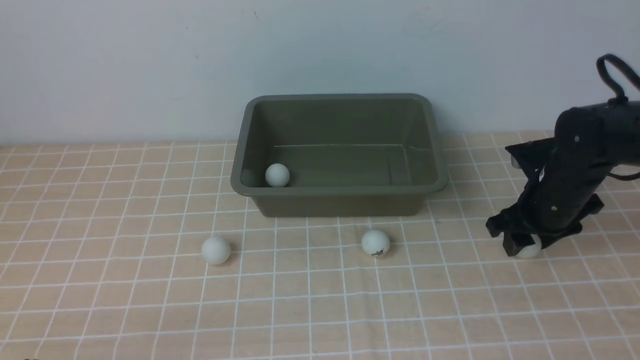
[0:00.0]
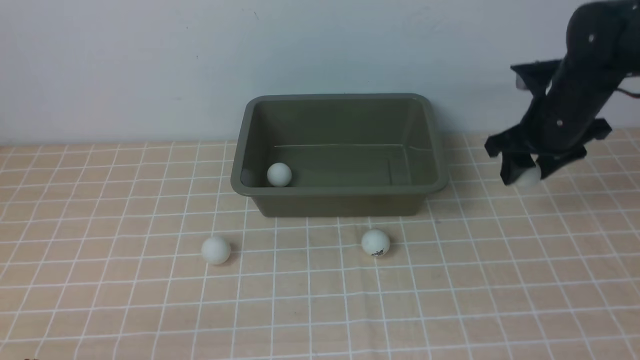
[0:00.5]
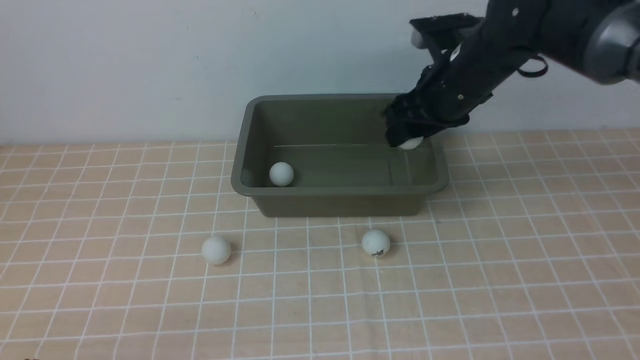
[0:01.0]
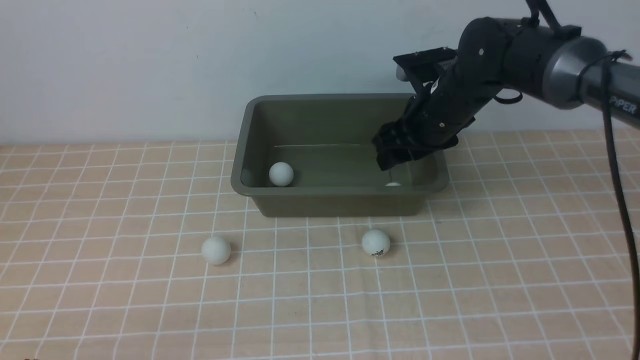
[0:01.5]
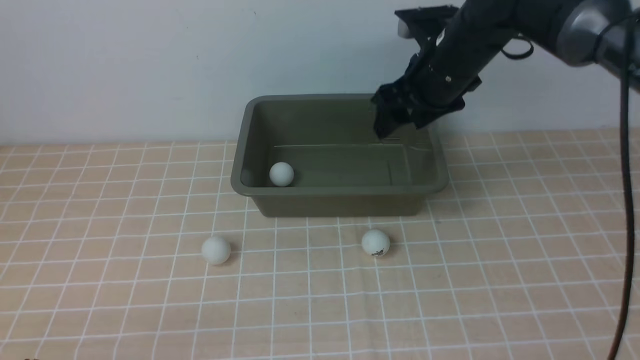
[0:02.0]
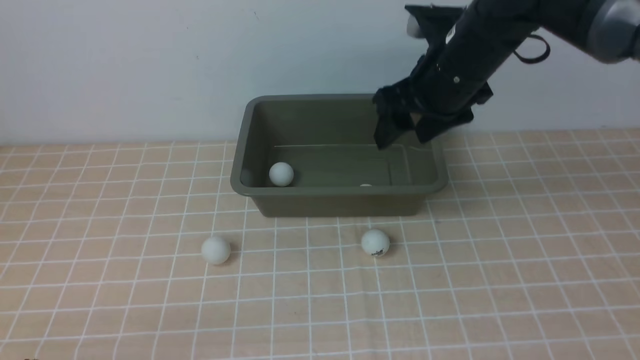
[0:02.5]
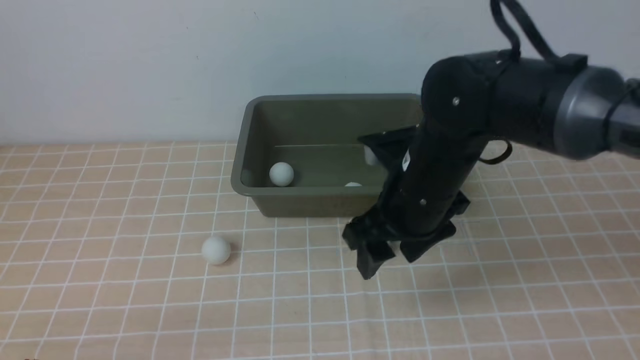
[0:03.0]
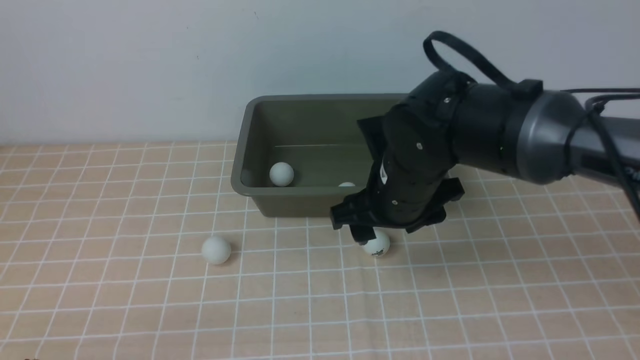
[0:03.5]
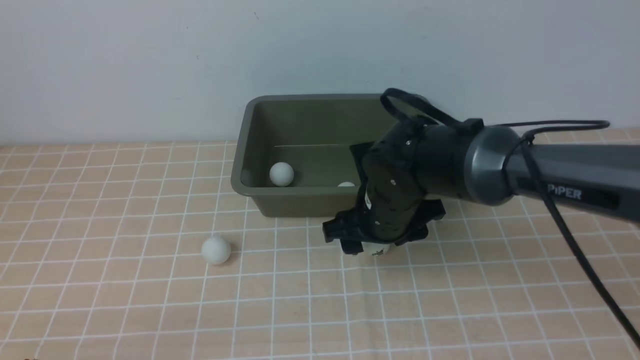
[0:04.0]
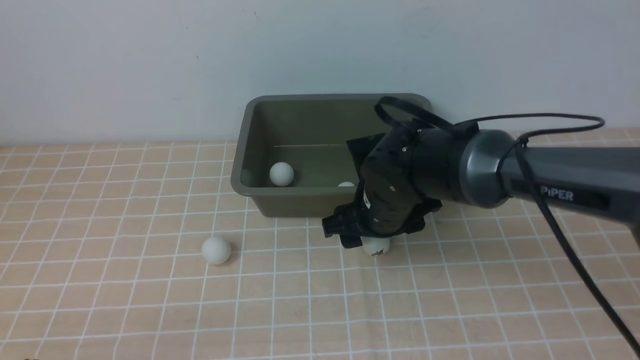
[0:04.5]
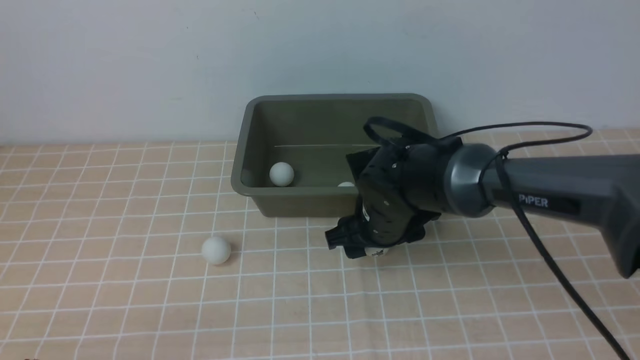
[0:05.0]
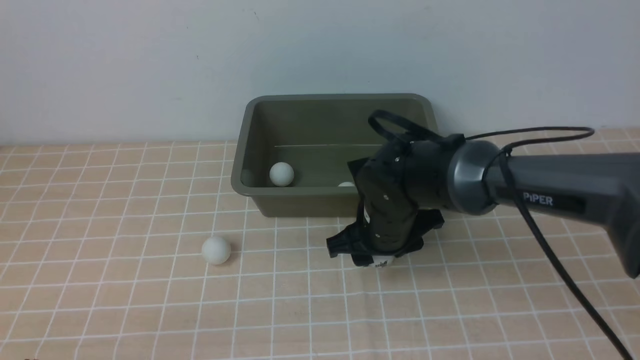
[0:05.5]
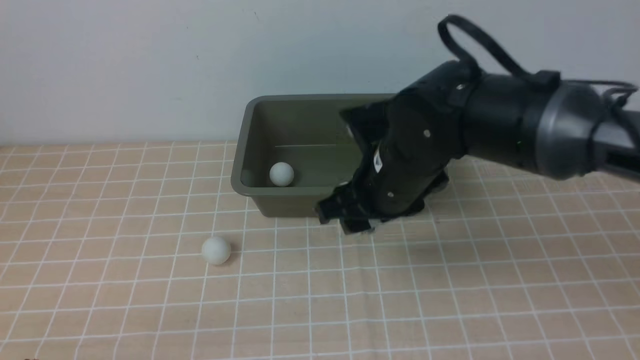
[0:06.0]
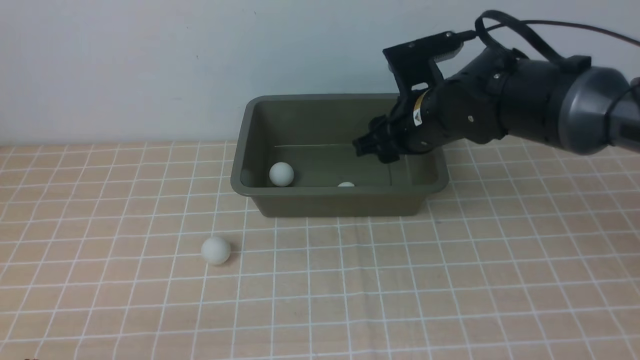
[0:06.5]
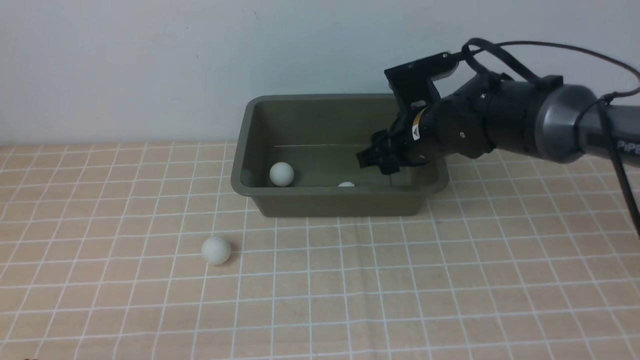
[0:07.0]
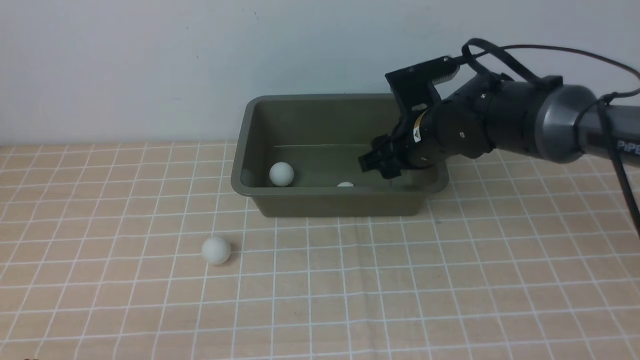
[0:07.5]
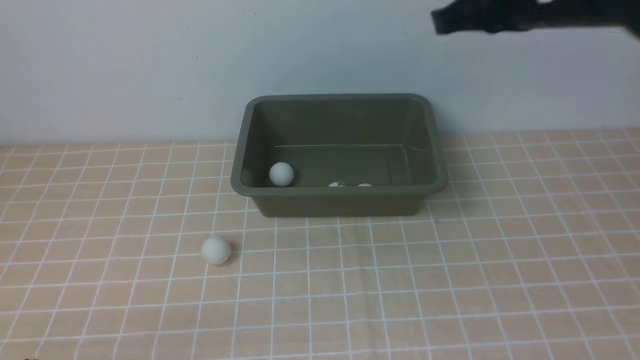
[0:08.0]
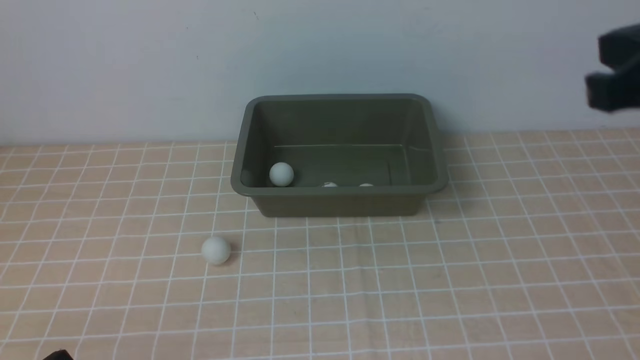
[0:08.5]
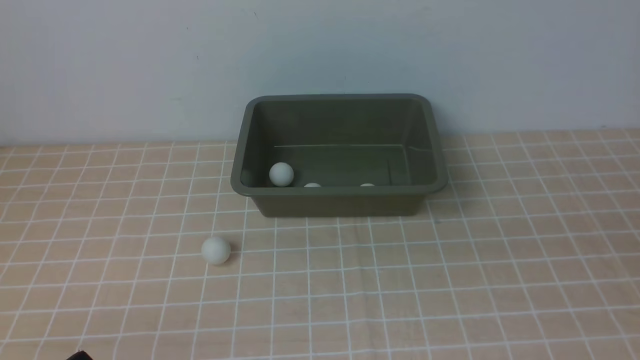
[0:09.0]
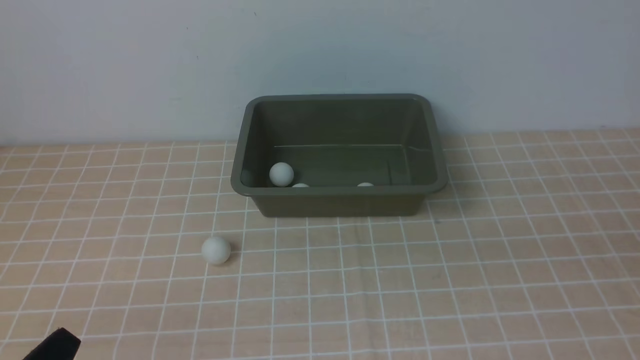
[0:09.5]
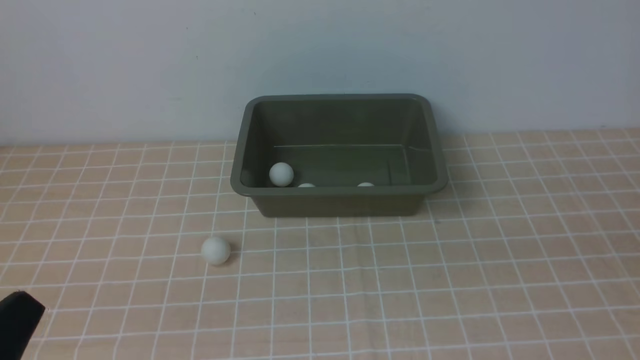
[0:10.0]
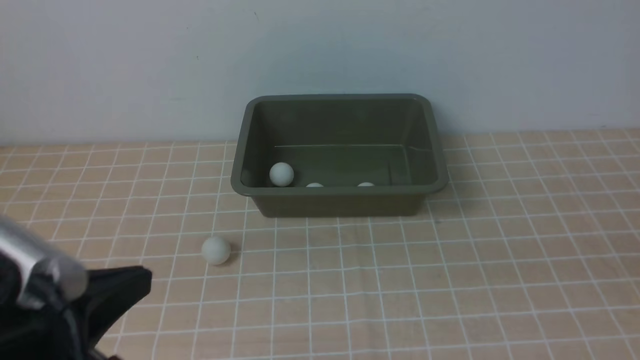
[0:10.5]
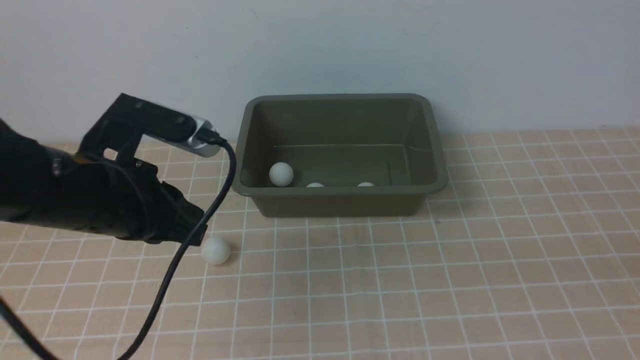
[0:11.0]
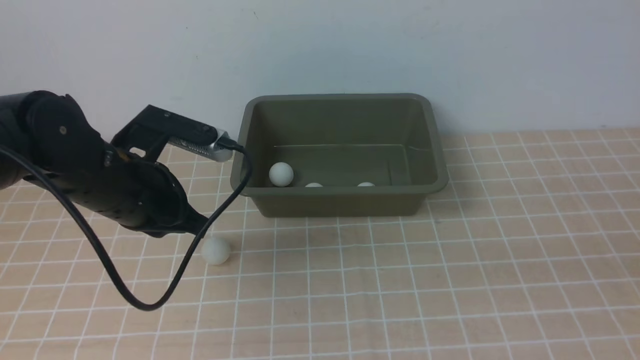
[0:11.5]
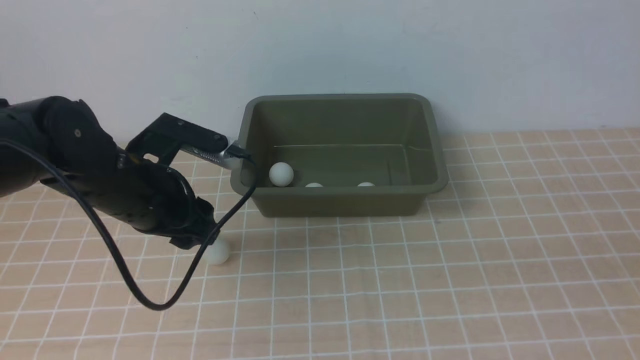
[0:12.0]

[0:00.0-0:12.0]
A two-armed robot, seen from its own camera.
Step, 0:01.5 to 0:02.0: use the right arm to put the table tennis ball into the box.
Step, 0:02.5 to 0:06.0: use the right arm to clamp the table tennis ball closest to it.
Step, 0:06.5 to 0:07.5: use the right arm to put the table tennis ball into the box.
0:00.0 to 0:02.0: The right gripper moves to the left, upward and forward, approximately 20 cm.
0:02.0 to 0:04.0: The right gripper is displaced downward, backward and to the left by some 15 cm.
0:04.0 to 0:06.0: The right gripper goes roughly 5 cm upward.
0:06.0 to 0:08.0: The right gripper heads upward and to the right, covering some 20 cm, and closes.
0:08.0 to 0:10.0: The right gripper shifts about 25 cm backward and to the right; the left gripper travels upward by roughly 10 cm.
0:10.0 to 0:12.0: The left gripper heads forward, covering approximately 25 cm, and opens its fingers.

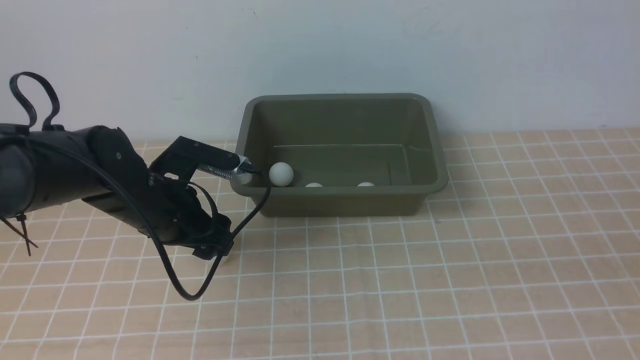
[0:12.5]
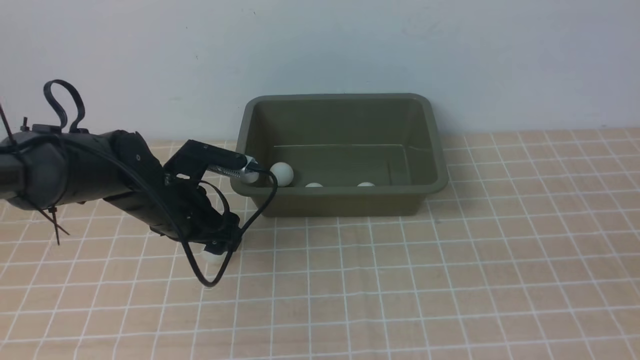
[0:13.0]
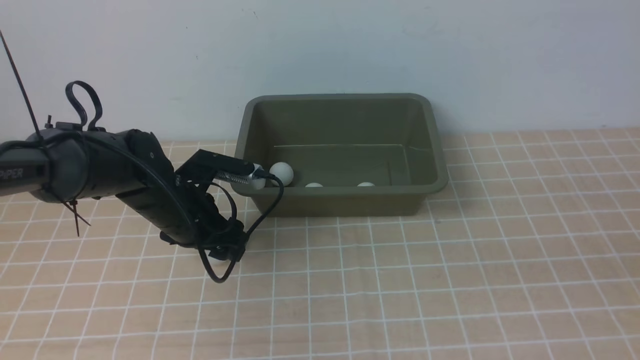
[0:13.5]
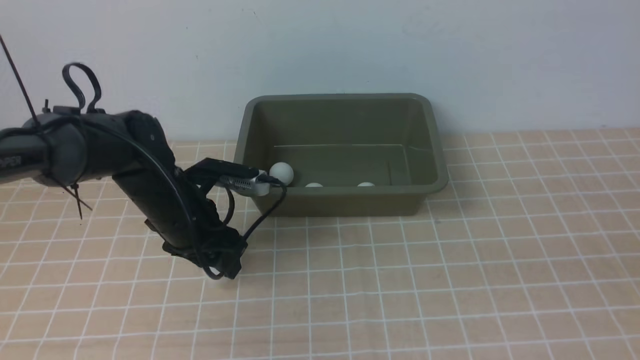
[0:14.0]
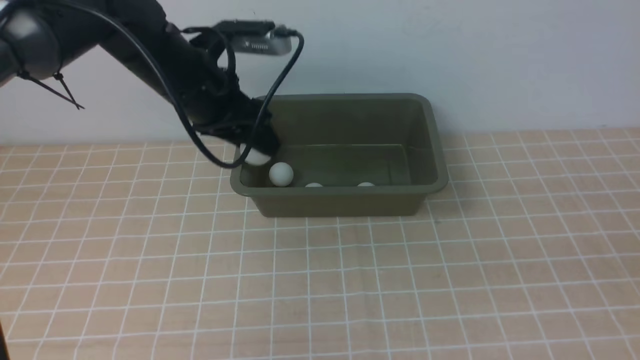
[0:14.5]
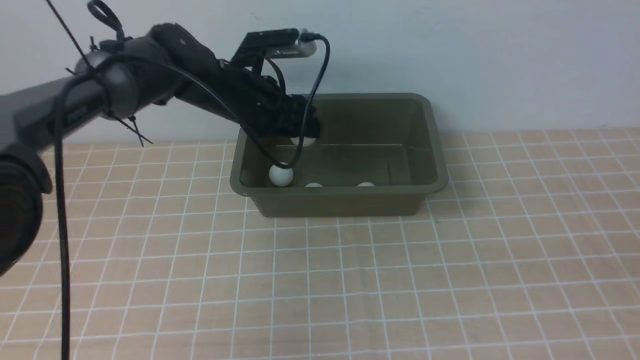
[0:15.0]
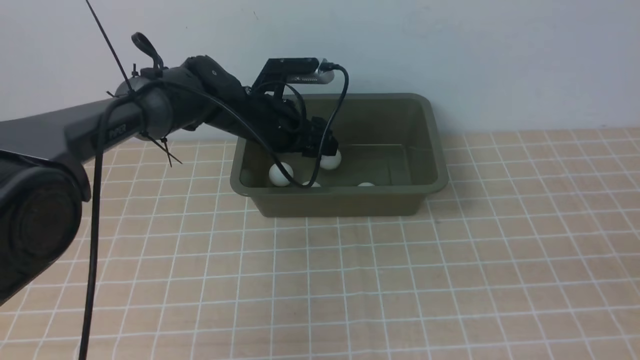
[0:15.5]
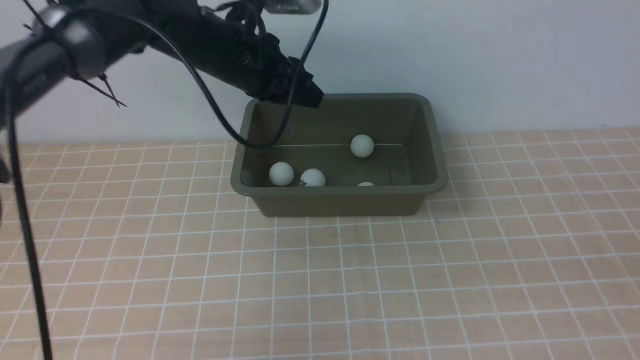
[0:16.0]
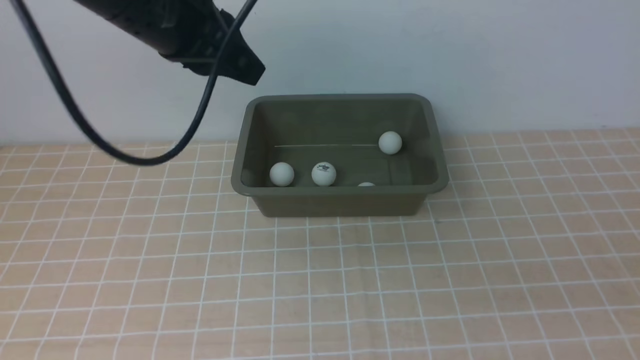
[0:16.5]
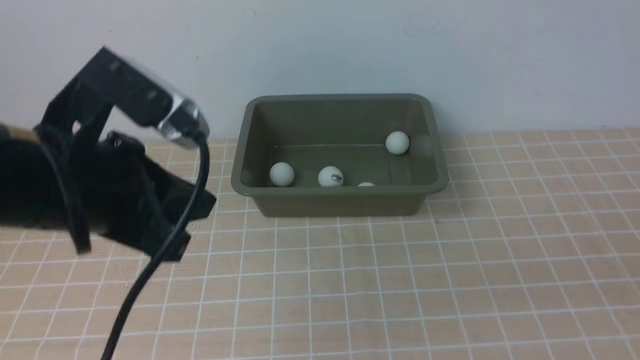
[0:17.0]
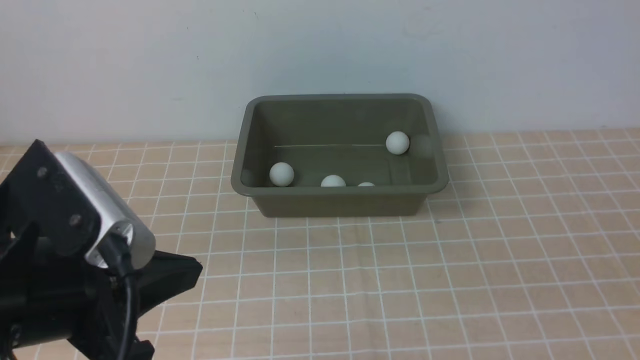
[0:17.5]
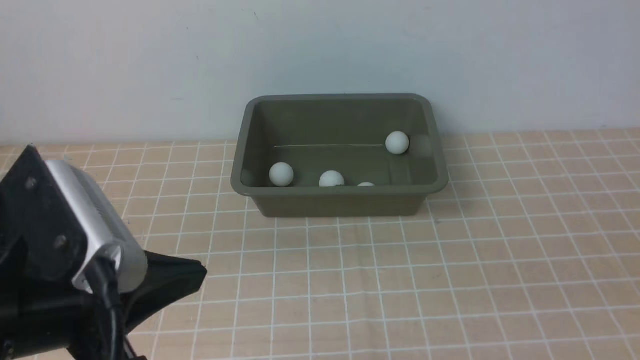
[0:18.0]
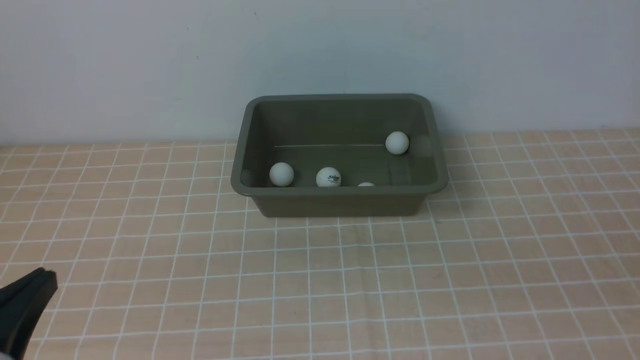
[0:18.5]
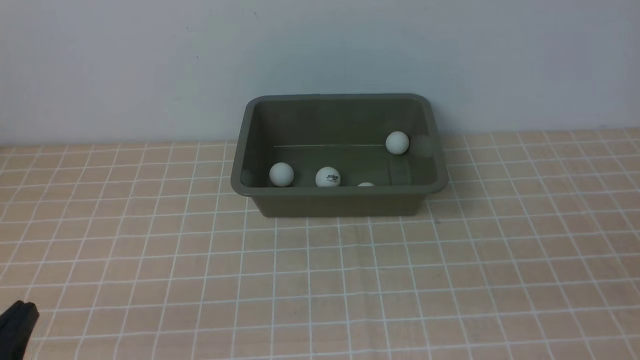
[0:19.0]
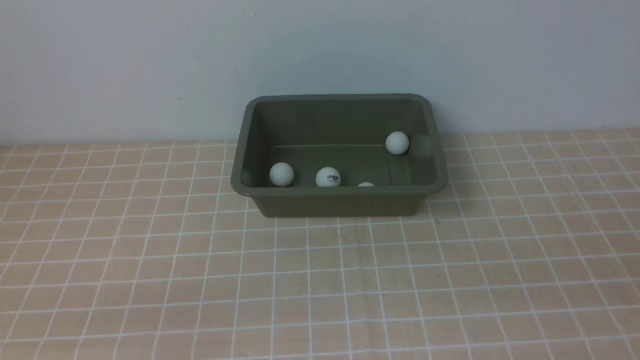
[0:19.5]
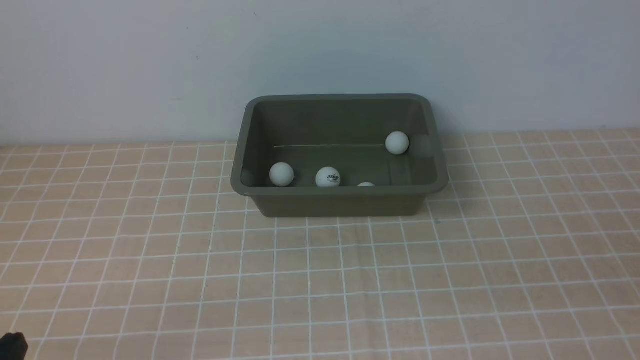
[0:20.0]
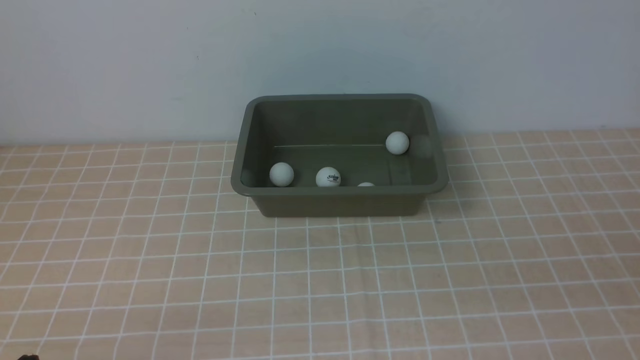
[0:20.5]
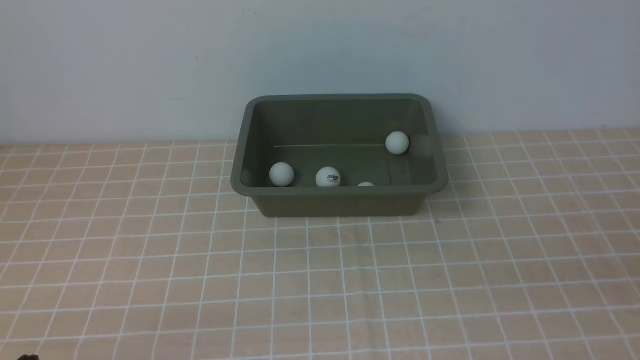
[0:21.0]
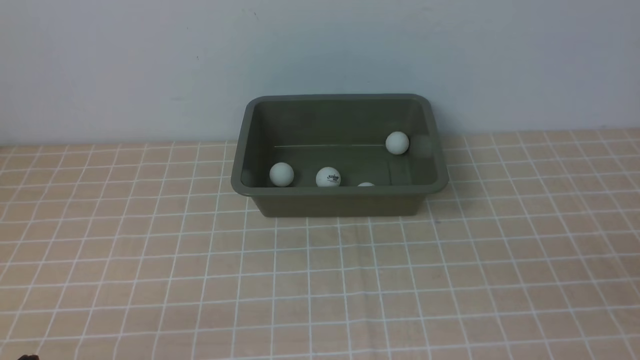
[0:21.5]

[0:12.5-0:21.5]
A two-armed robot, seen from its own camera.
Step, 0:14.5 to 0:15.5: use the left arm to put the table tennis ball into the box.
0:12.5 to 0:14.5: The left gripper is displaced upward and forward by some 15 cm, and closes up.
0:14.5 to 0:17.0: The left gripper heads backward, covering approximately 20 cm, and closes its fingers.
0:17.0 to 0:19.5: The left gripper shifts approximately 20 cm backward, downward and to the left.
